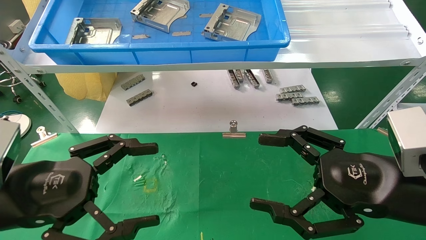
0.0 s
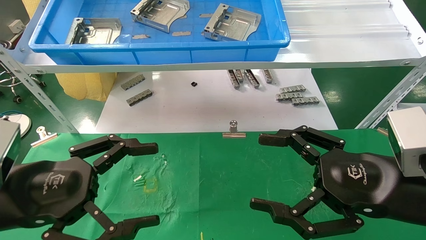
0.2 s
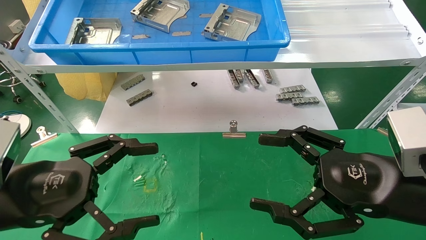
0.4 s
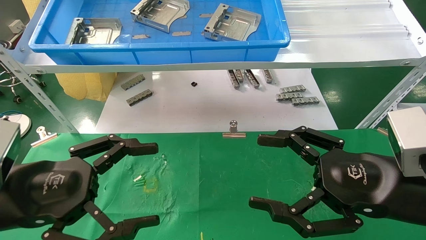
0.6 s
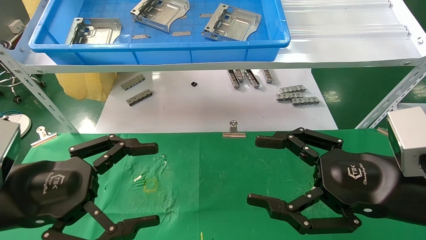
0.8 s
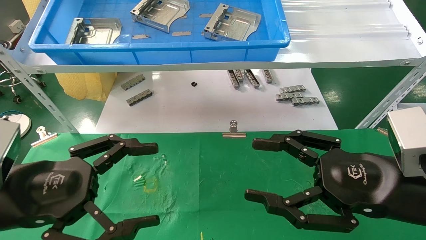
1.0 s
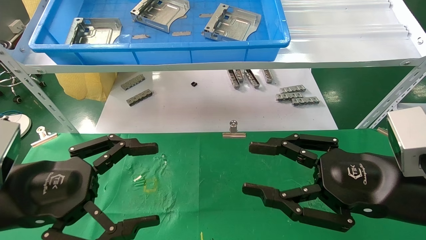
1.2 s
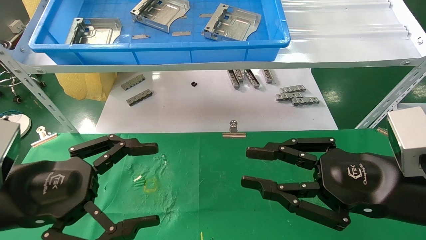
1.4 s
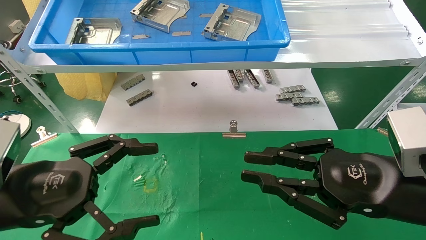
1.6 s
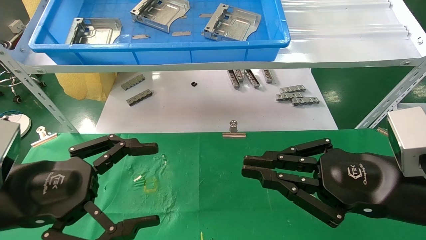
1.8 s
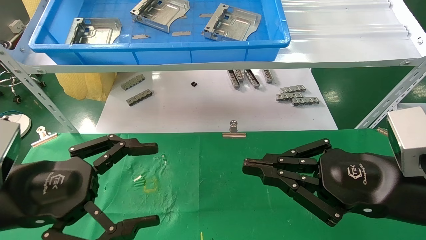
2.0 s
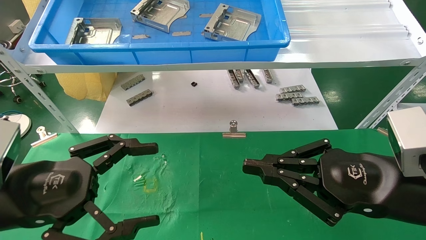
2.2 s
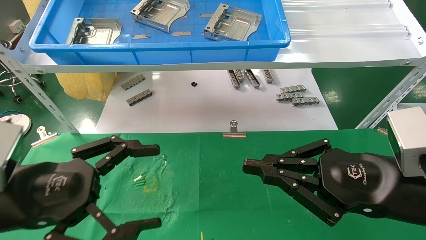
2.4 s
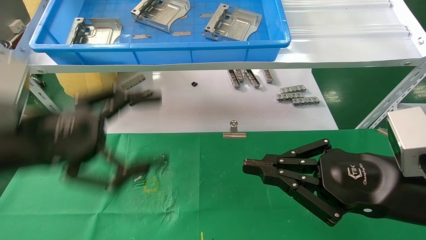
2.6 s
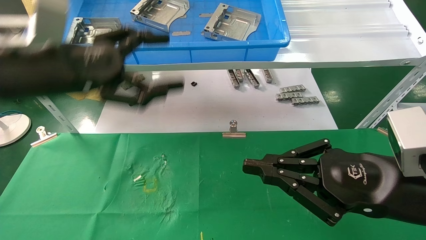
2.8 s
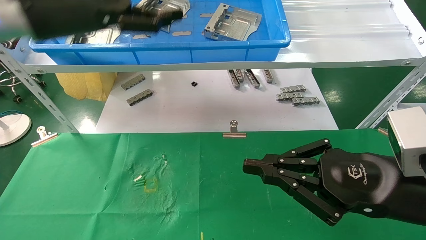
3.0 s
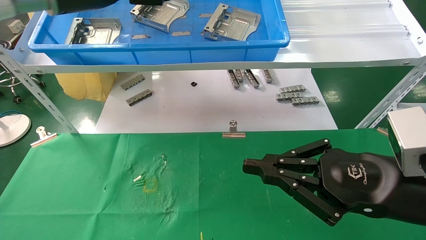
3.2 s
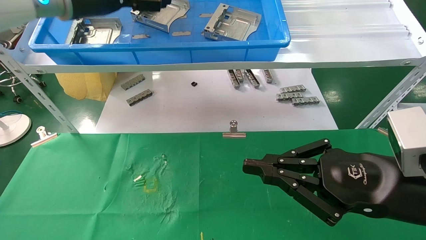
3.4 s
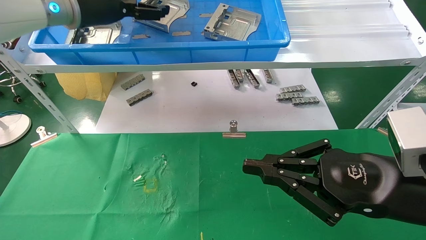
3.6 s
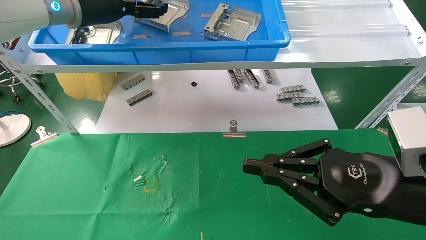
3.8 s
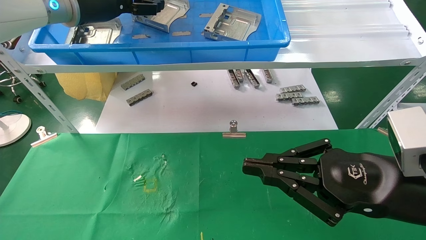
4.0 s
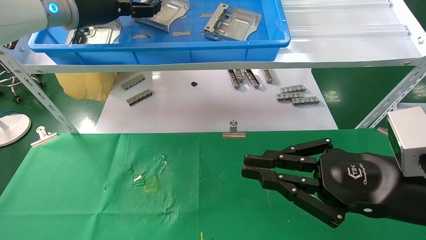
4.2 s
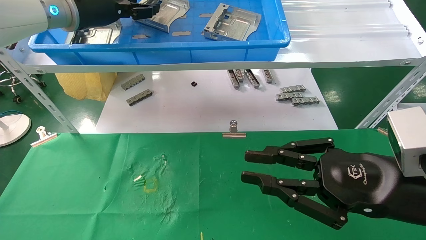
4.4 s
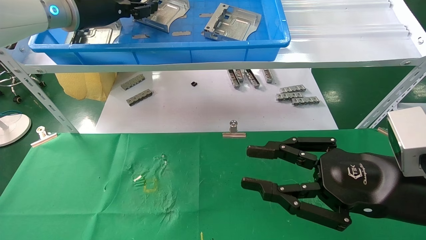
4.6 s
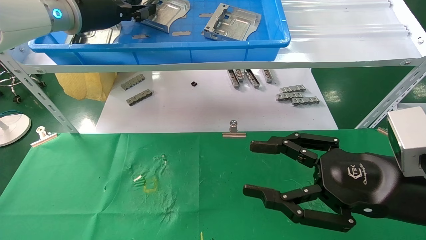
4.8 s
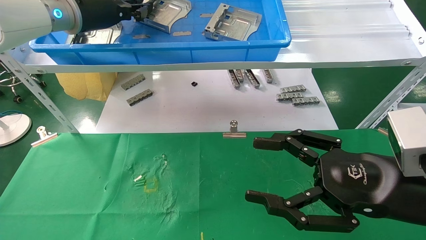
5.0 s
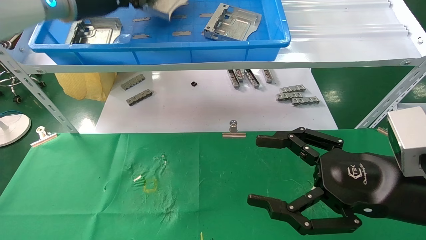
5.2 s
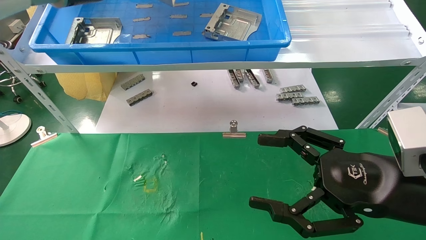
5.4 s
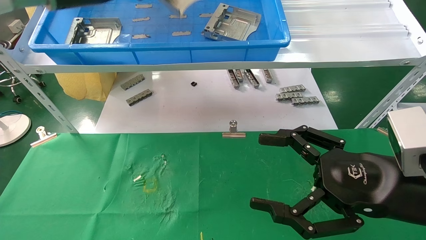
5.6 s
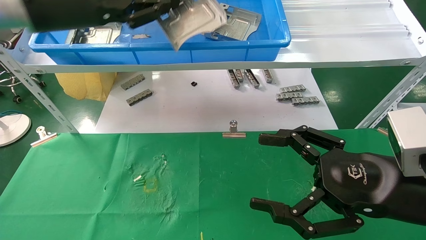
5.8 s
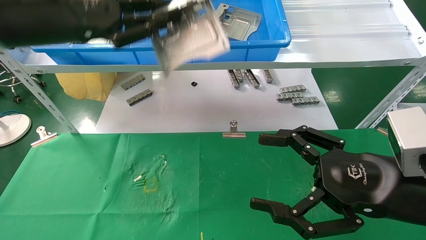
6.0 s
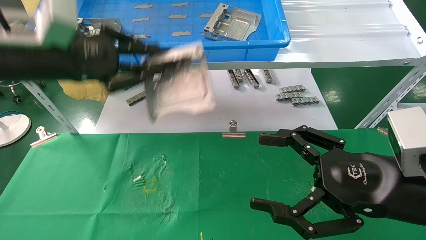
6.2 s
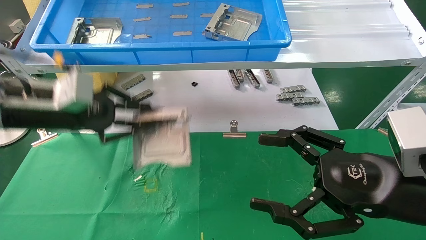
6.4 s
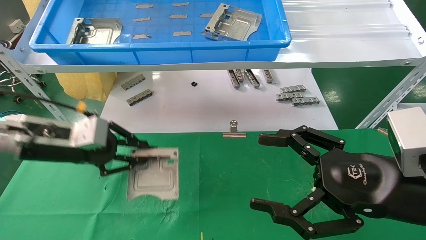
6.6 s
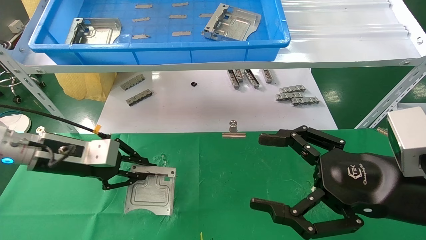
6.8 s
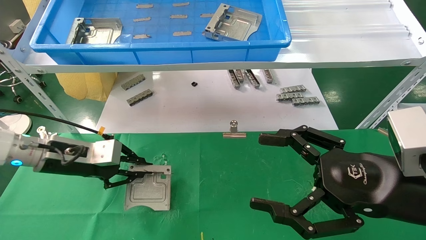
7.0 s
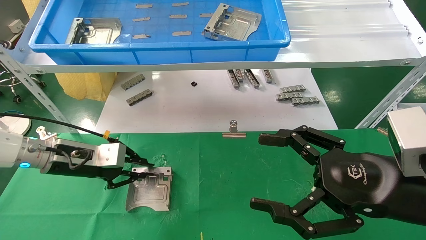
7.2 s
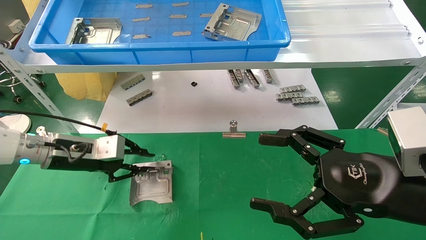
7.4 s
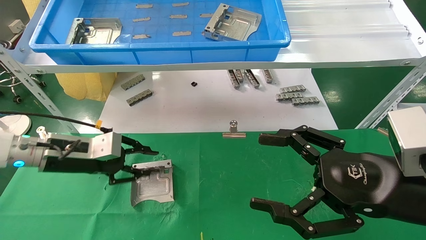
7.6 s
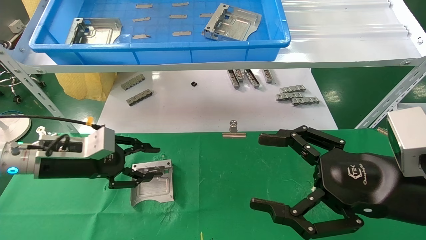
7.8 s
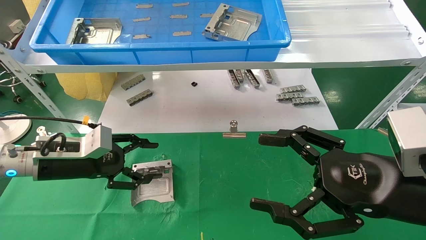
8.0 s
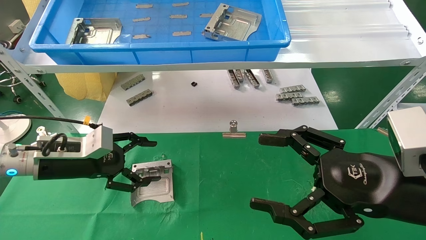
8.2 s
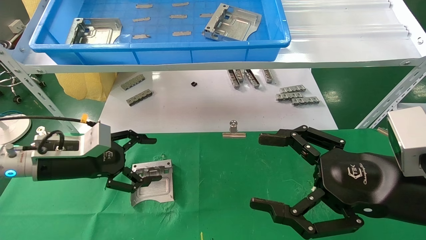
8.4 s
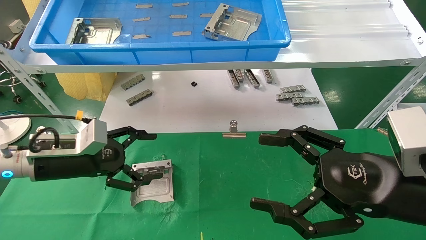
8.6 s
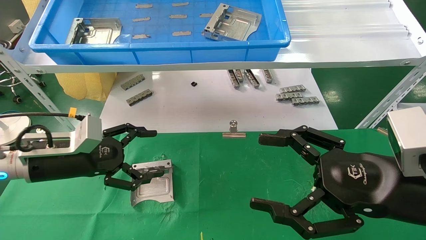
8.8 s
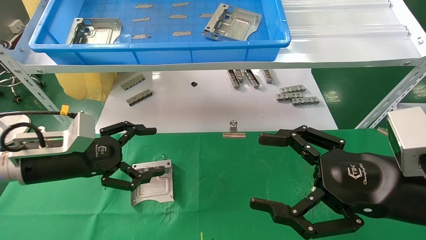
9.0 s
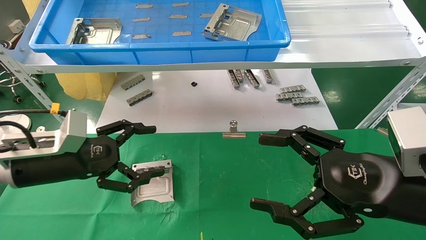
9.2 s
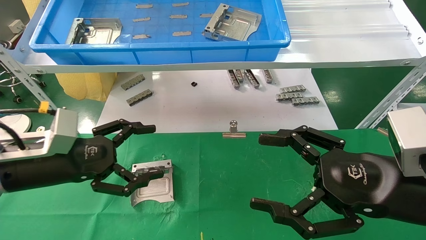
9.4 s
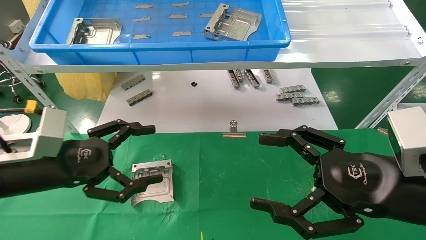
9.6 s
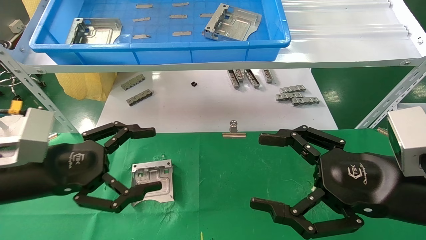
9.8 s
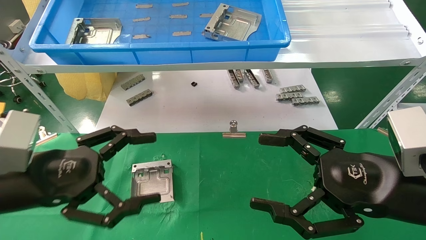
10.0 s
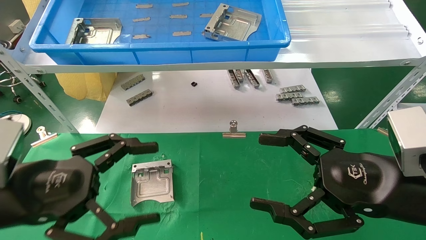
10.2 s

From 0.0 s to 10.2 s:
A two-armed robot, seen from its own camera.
Task of the whole recording: use the mechanical arm to pick up the parts and place them on the table.
Step, from 2.6 s to 5.0 s: Pick up the hard drive bracket from the feeding area.
Step, from 5.2 s to 7.8 s: Place the hard drive bracket into the box.
From 0.0 s to 1.4 s: The right gripper closes up.
From 1.4 s to 3.0 s: The left gripper heads upward and forward, covering some 25 cm. Meanwhile the right gripper closes.
From 3.0 s to 4.4 s: The left gripper travels forward by approximately 10 cm.
From 4.4 s to 5.8 s: The right gripper opens; the left gripper moves backward, roughly 10 cm, and closes up.
From 5.8 s to 7.2 s: The left gripper shifts approximately 25 cm downward.
From 7.2 s to 8.8 s: The left gripper opens.
From 8.8 s to 10.2 s: The left gripper shifts some 15 cm backward.

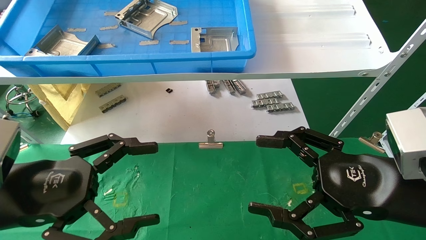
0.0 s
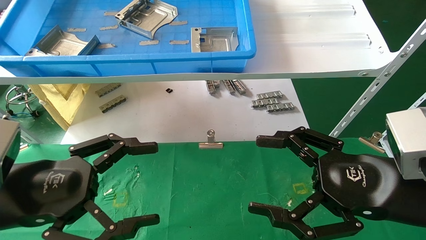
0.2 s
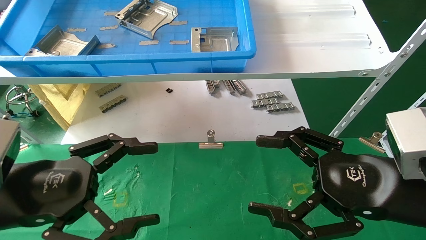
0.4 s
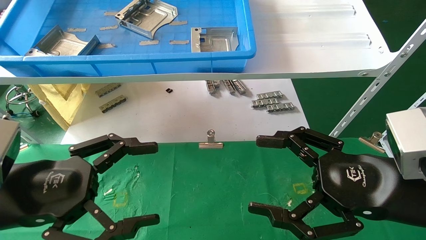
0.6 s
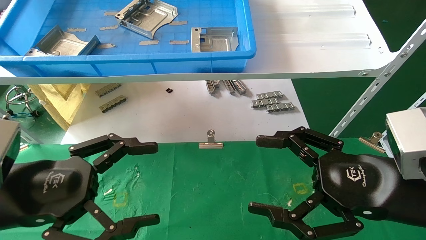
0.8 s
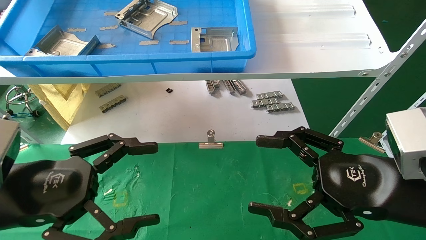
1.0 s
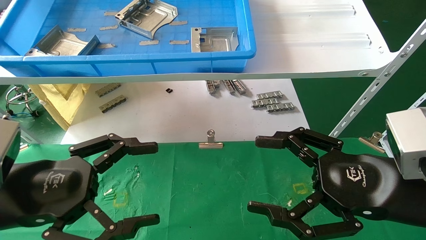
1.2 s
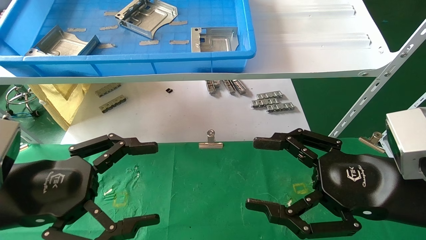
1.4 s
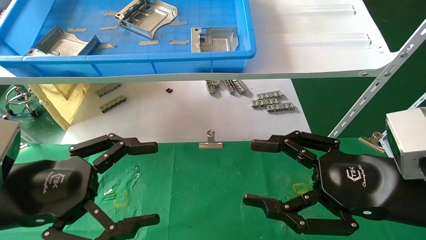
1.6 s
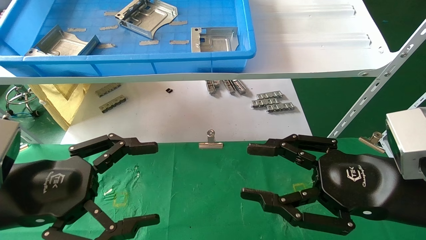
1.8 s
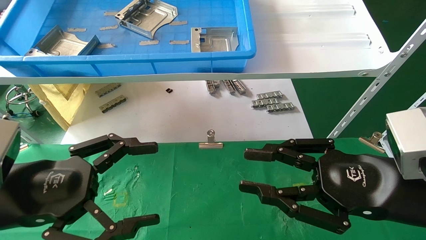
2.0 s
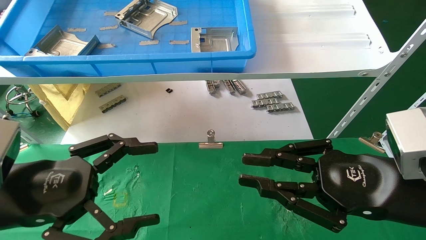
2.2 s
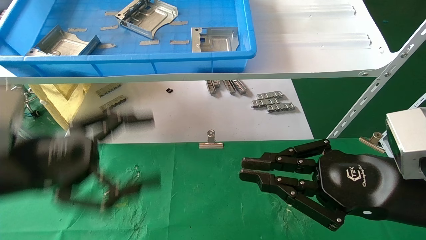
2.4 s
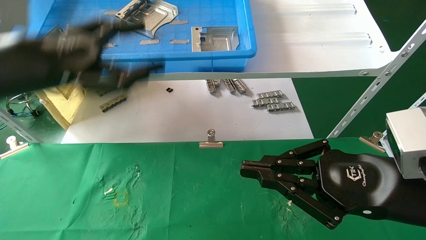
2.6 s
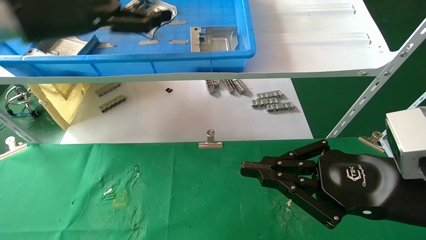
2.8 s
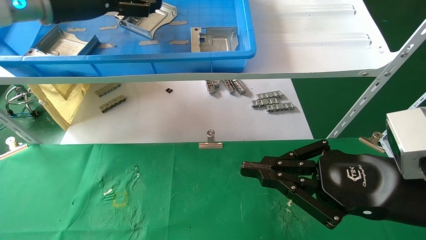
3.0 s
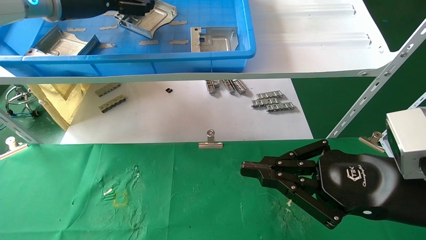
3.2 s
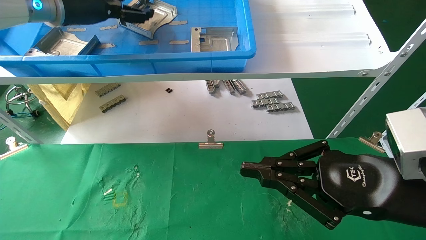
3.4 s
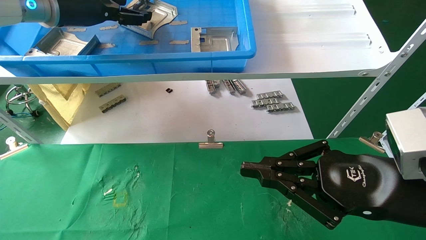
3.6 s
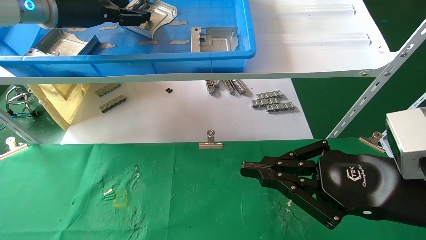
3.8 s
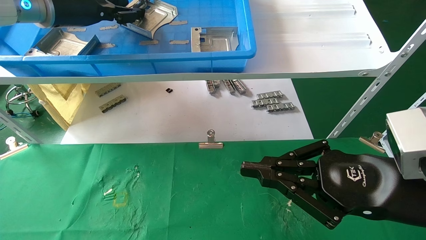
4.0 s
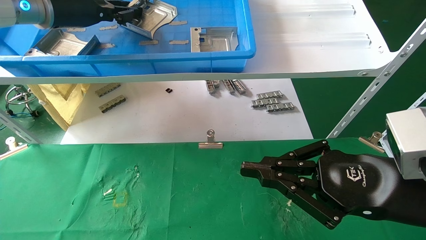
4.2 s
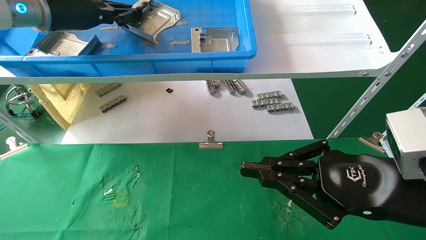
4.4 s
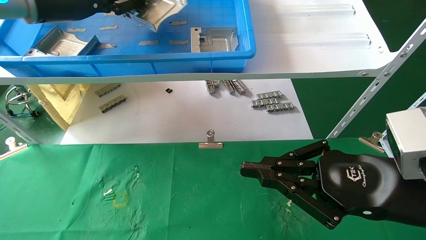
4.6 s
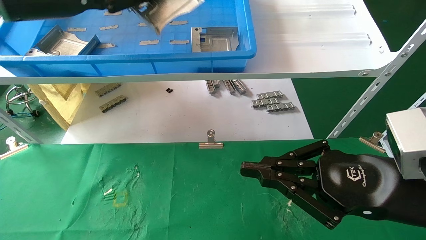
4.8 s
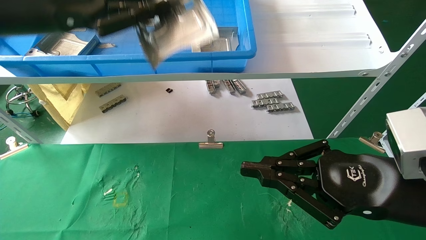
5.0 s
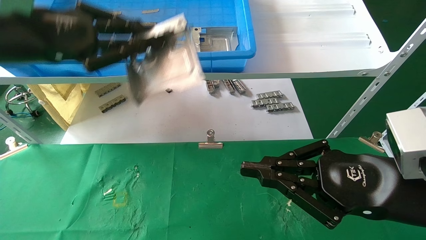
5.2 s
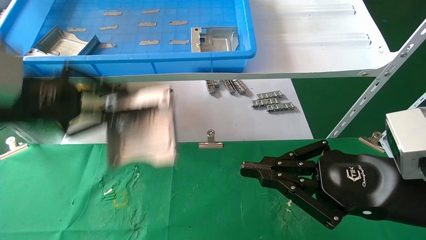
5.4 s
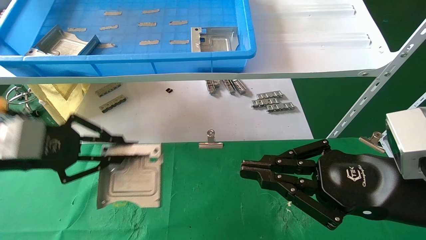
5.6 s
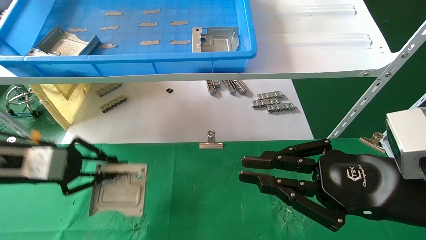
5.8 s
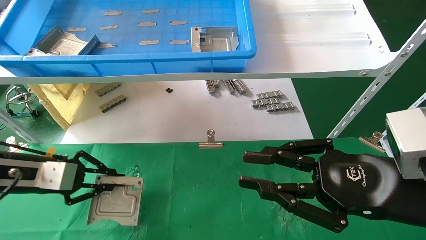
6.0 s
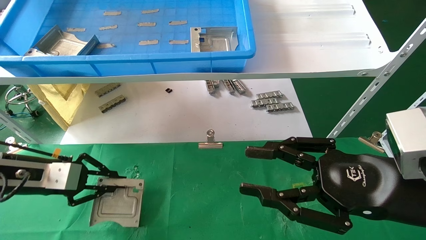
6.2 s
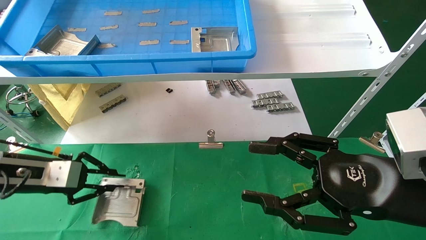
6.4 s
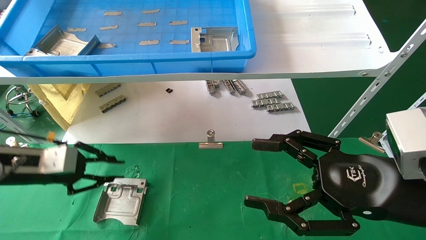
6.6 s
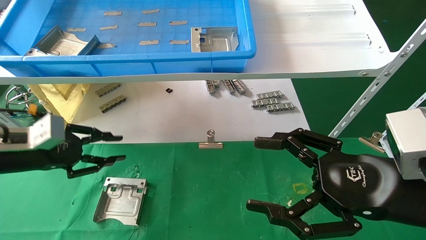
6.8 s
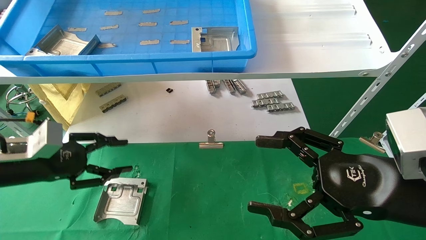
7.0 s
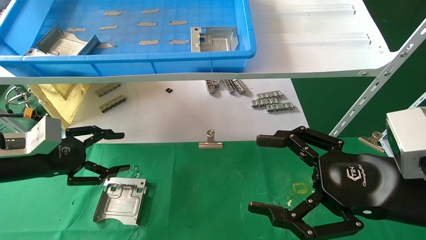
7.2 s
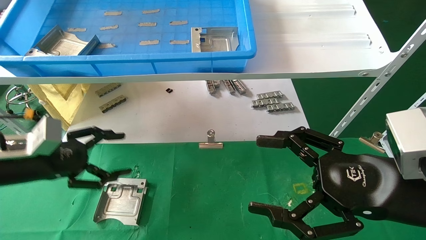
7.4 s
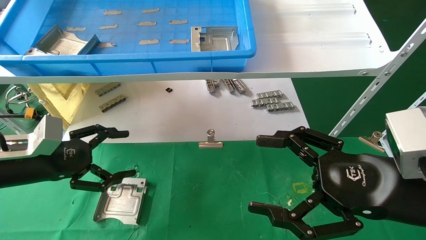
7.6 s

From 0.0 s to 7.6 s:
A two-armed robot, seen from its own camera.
Task of the whole recording: use the mechanical arm to pick up the parts and place them on the table.
Step, from 2.6 s to 4.2 s: Pick up the hard drive bracket from the feeding area.
Step, from 4.4 s to 6.6 s: Place the hard drive bracket into the box.
From 0.0 s to 1.6 s: Neither gripper changes place.
From 1.6 s to 3.0 s: The left gripper goes approximately 30 cm upward and forward; the right gripper closes.
From 3.0 s to 4.6 s: The left gripper closes.
From 4.6 s to 6.0 s: The left gripper heads downward, covering roughly 25 cm.
From 6.0 s to 7.6 s: The left gripper opens up. Meanwhile the right gripper opens up.
